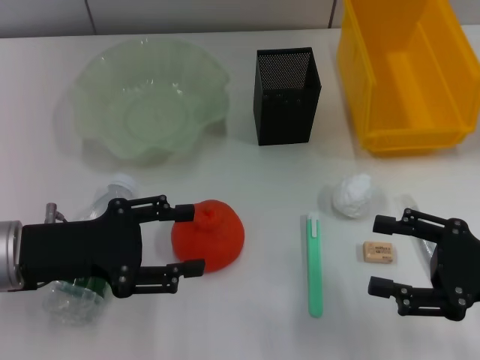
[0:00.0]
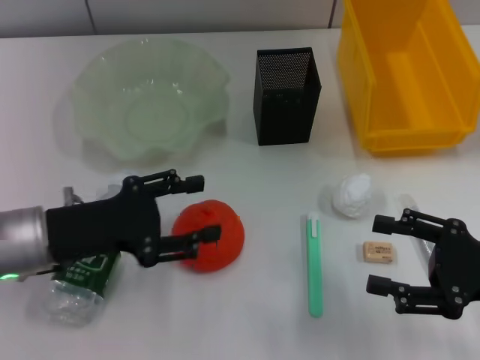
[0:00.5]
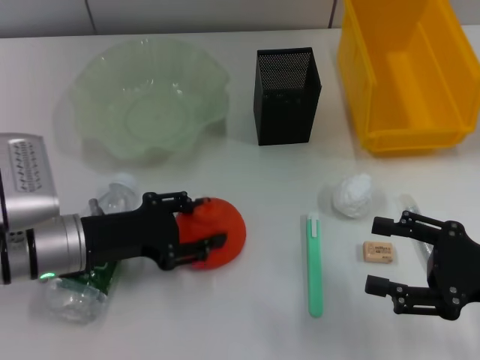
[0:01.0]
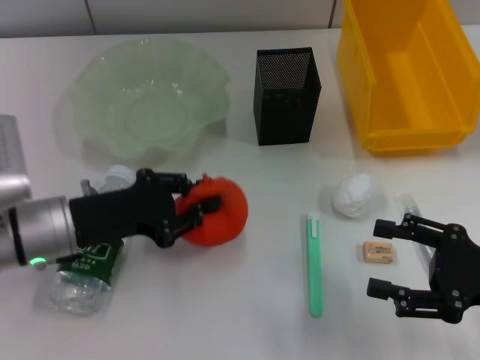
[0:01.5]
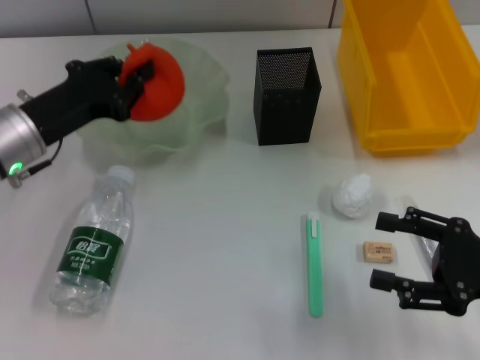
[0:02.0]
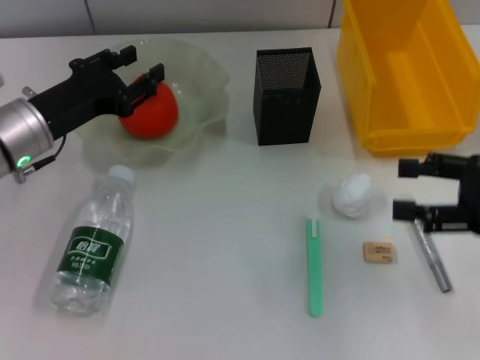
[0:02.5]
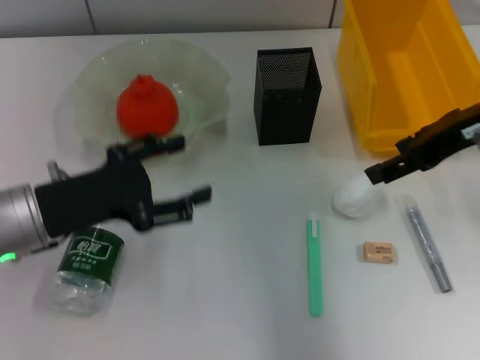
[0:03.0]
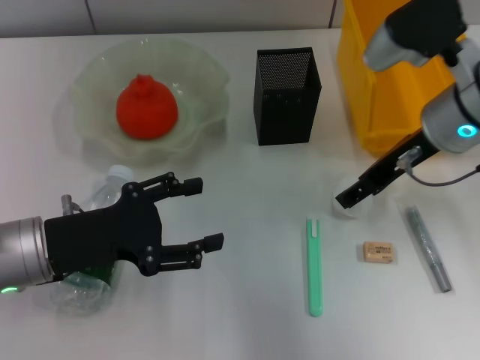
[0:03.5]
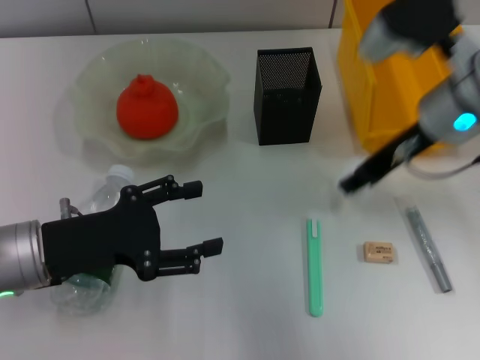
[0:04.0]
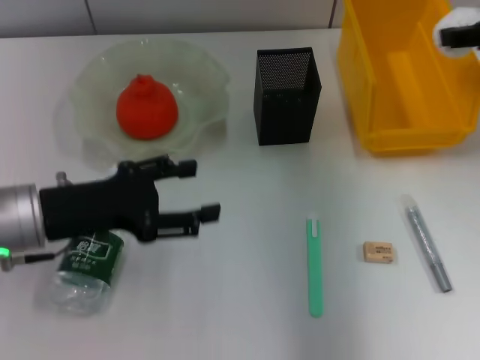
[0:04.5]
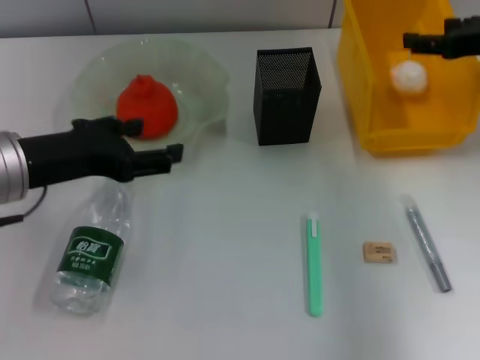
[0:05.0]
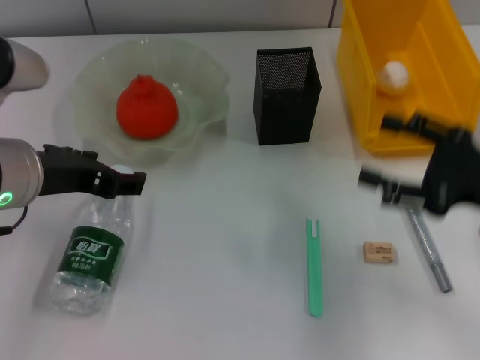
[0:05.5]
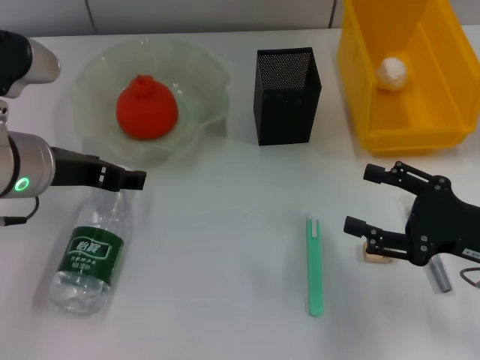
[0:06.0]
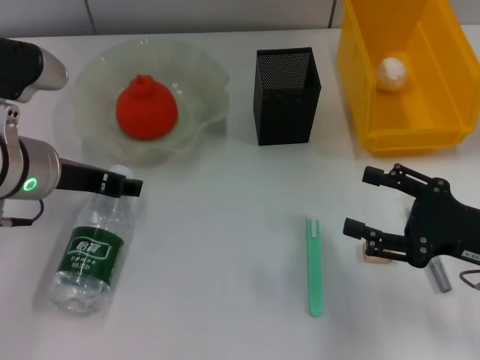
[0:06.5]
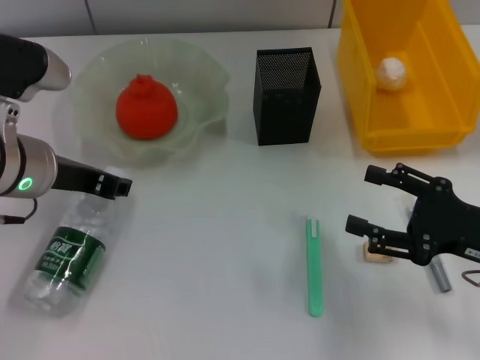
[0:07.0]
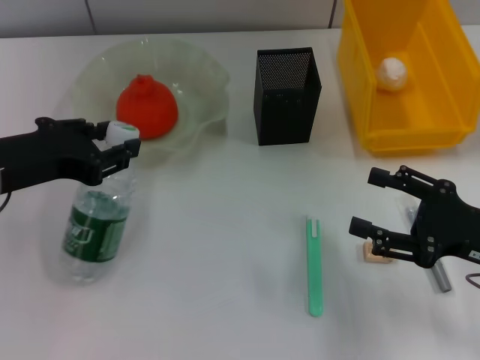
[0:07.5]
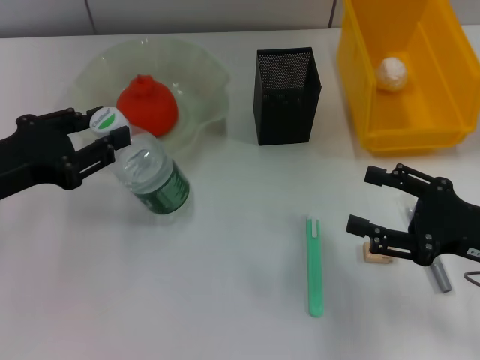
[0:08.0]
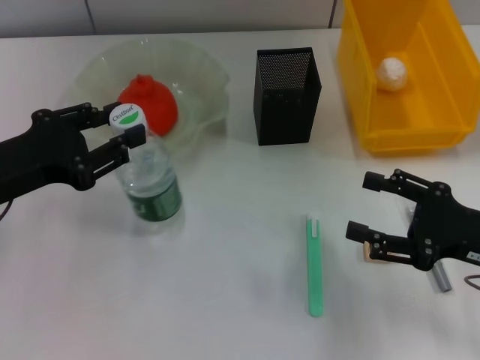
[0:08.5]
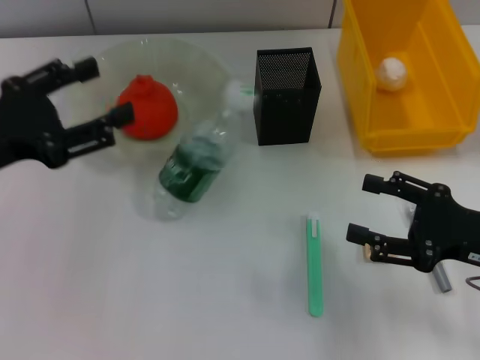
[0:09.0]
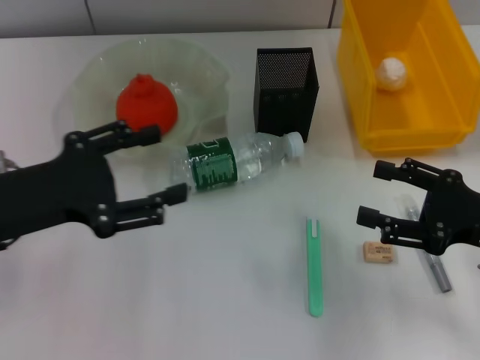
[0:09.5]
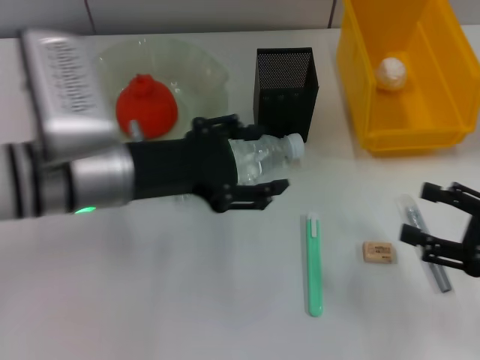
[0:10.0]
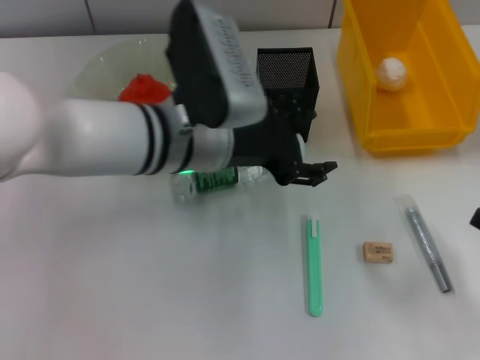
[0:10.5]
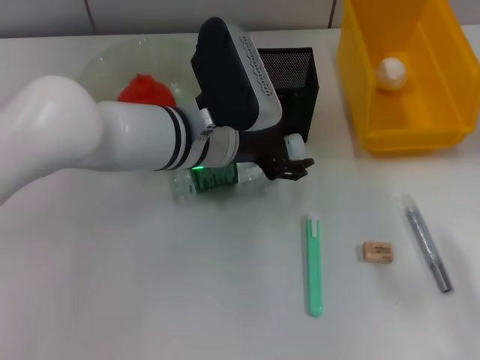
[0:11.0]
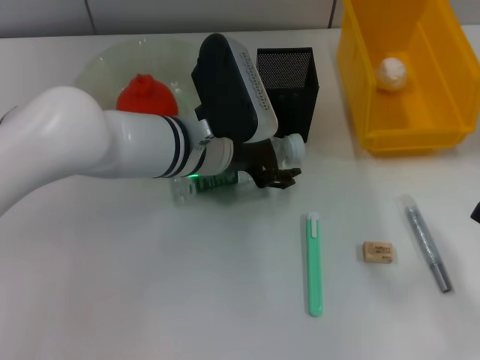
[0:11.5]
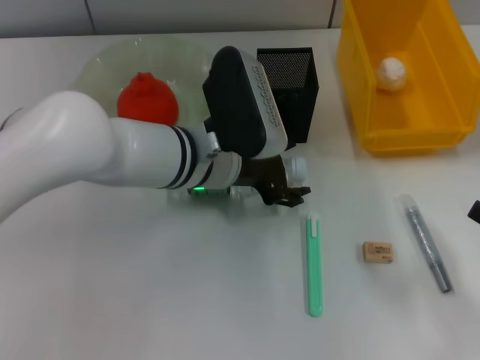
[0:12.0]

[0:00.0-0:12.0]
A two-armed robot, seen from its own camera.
Step, 0:00.0 to 0:01.0: Grab the orange with the left hand.
Step, 0:01.5 to 0:02.0: Place the orange into the fruit bowl with the left hand.
Step, 0:02.5 to 0:03.5: Grab the paper ball with the right hand.
Step, 0:04.0 to 0:05.0: Place the paper ball into the trash can with the right hand.
0:00.0 to 0:02.0: The left gripper moves forward, roughly 10 cm, and closes its fingers.
0:02.0 to 0:04.0: The right gripper heads forward, to the left and upward, covering roughly 20 cm. The left gripper moves backward, roughly 10 cm, and opens its fingers.
0:04.0 to 0:06.0: The right gripper travels backward, downward and to the right by roughly 20 cm. The left gripper travels upward and forward by about 10 cm.
0:06.0 to 0:08.0: The left gripper is displaced to the left by some 5 cm, and closes.
0:08.0 to 0:10.0: The left gripper travels to the right by roughly 10 cm, and opens up.
0:10.0 to 0:12.0: The right gripper changes place by approximately 5 cm, while the left gripper is displaced to the right and forward by about 10 cm.

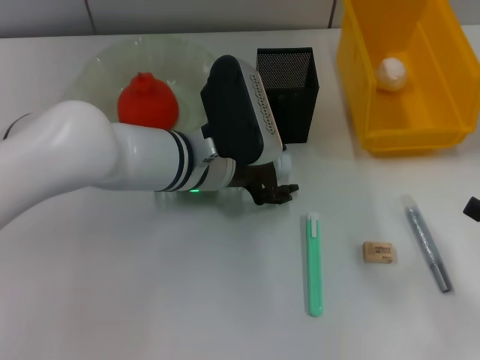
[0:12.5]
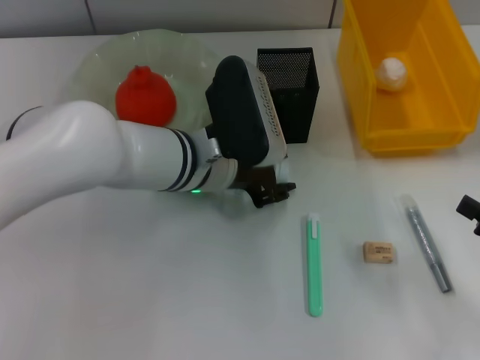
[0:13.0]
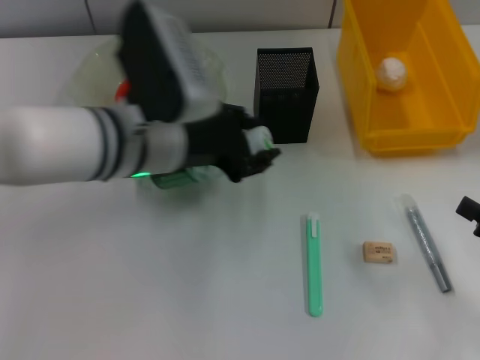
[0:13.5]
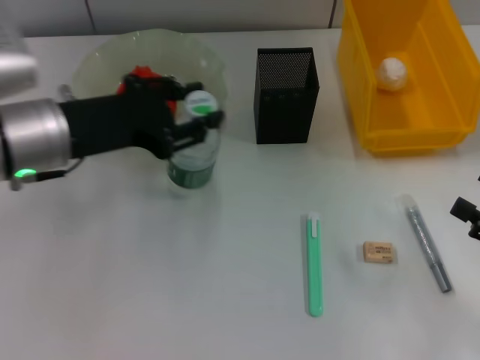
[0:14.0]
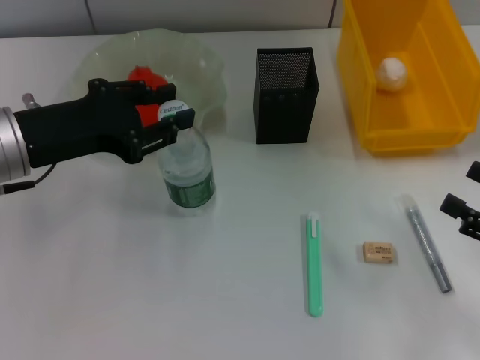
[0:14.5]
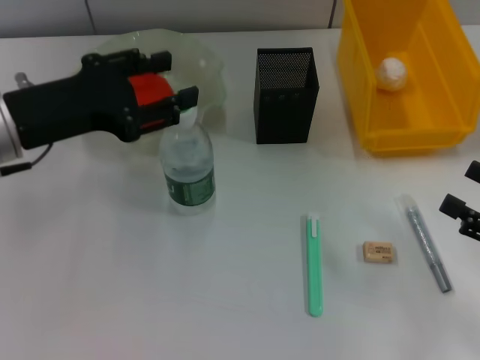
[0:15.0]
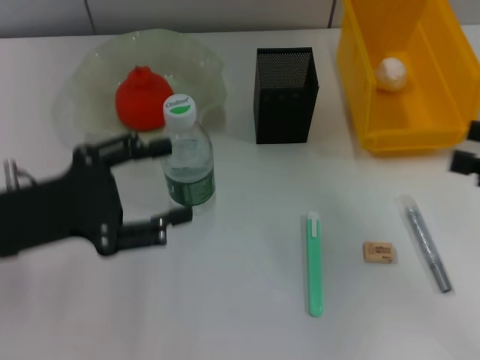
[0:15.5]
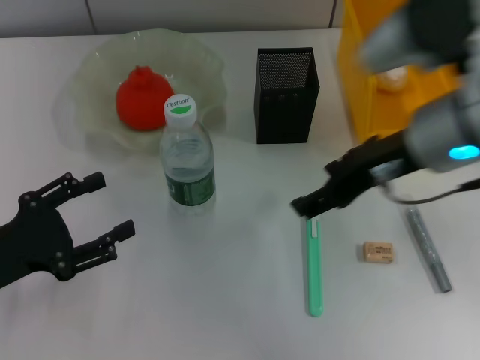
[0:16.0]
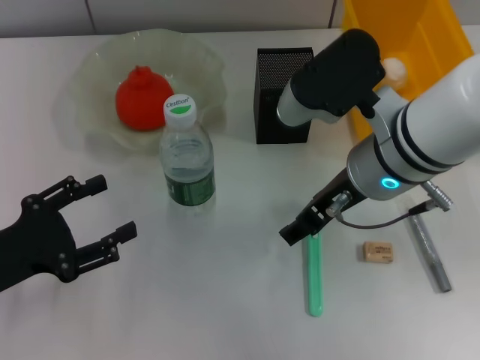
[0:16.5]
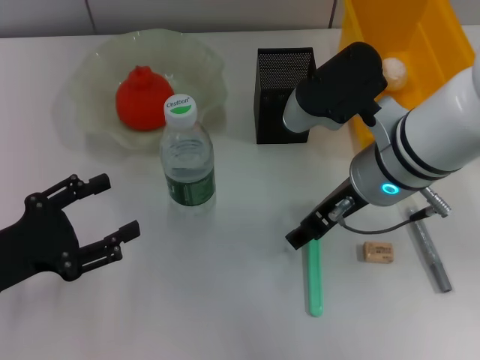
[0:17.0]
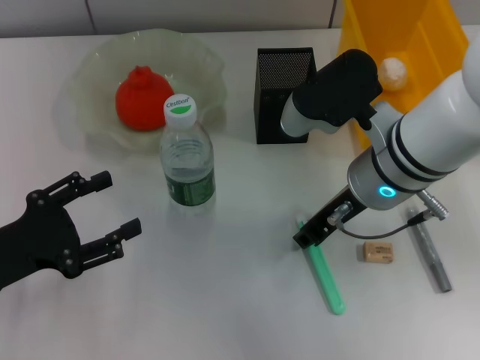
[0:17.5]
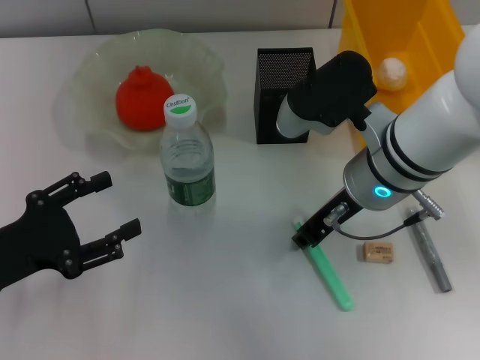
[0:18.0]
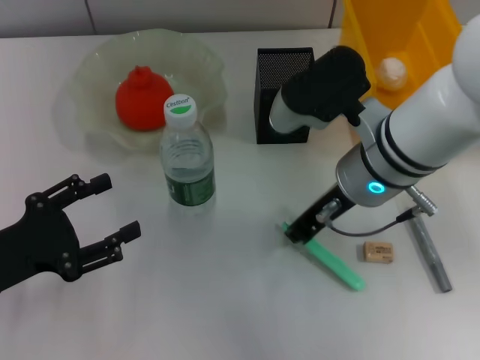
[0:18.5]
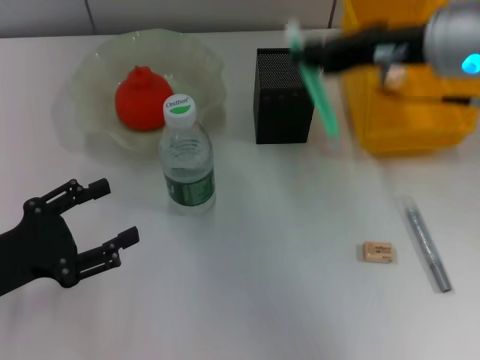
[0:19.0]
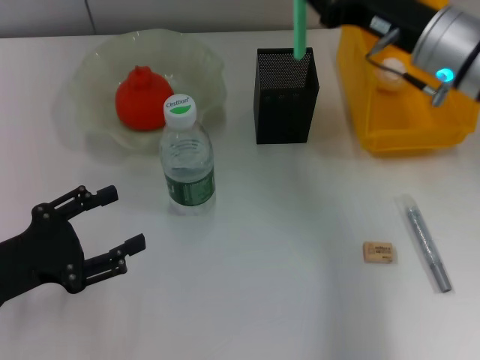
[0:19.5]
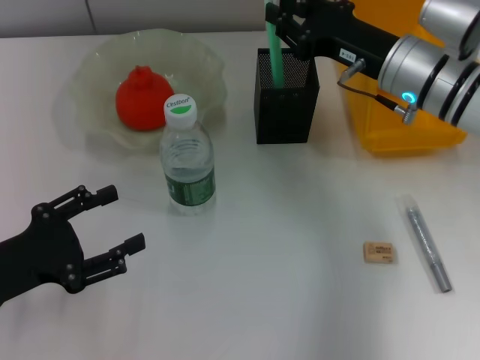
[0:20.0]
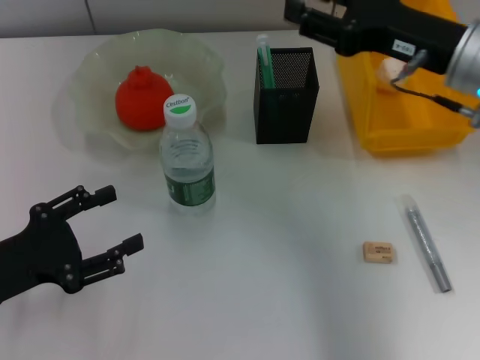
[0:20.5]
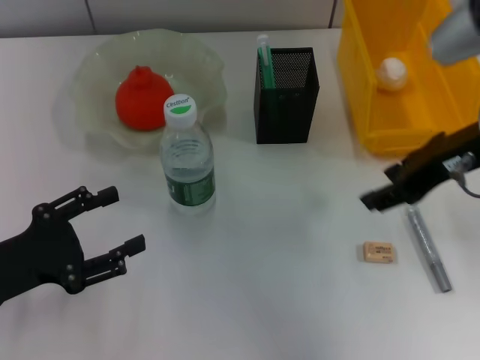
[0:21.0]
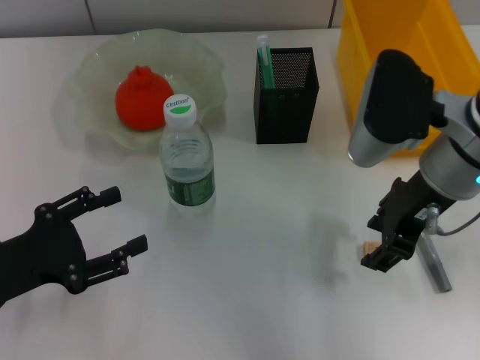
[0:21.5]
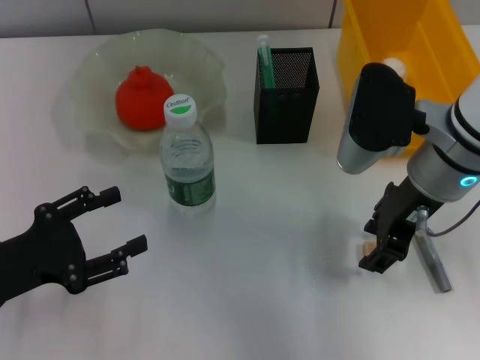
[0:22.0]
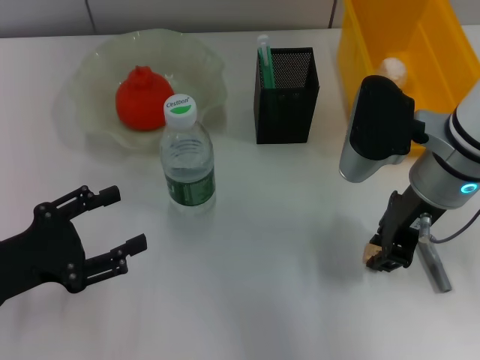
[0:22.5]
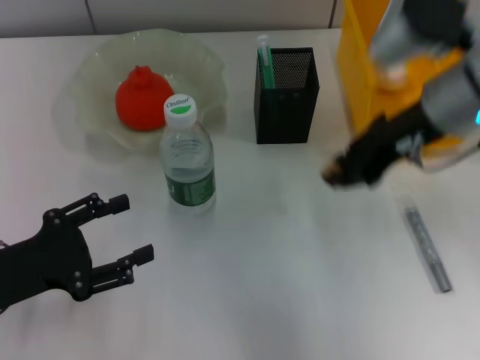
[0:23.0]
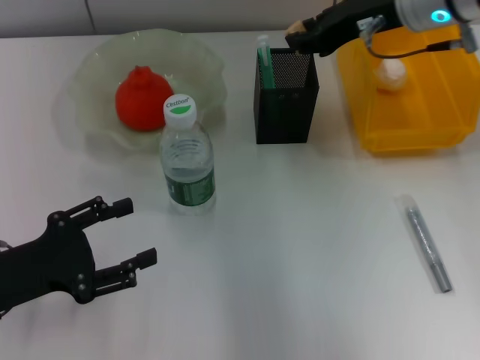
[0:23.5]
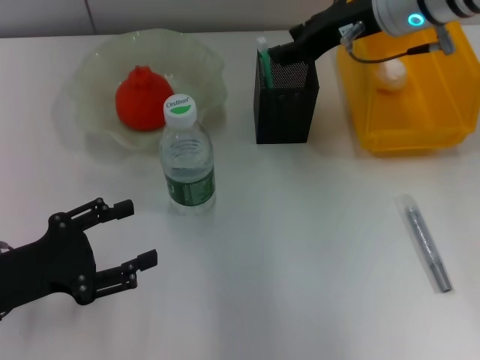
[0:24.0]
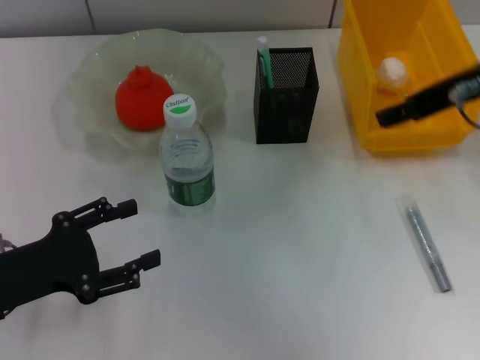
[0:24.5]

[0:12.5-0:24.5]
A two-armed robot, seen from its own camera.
Step, 0:13.5 to 0:14.5: Place the water bottle on the table with the left hand.
Step, 0:15.0 to 0:18.0: Grab the blue utility knife with the right hand.
Step, 0:18.5 to 0:20.0: Place the blue utility knife into the pen holder with the right hand.
Step, 0:20.5 to 0:22.5: Grab the eraser with the right hand.
Step, 0:23.0 to 0:23.5: Put the eraser into the pen holder with the right hand.
0:12.5 to 0:14.5: The left gripper moves to the left and upward, some 20 cm, and closes its fingers.
0:14.5 to 0:16.5: The right gripper travels to the left and forward by some 25 cm. Meanwhile the left gripper is displaced downward, backward and to the left by approximately 15 cm, and opens up.
0:16.5 to 0:18.5: The right gripper closes its fingers.
0:18.5 to 0:20.5: The right gripper moves up and down over roughly 10 cm, changing direction 2 times, and opens up.
0:20.5 to 0:22.5: The right gripper moves about 5 cm.
0:22.5 to 0:24.5: The right gripper travels upward by about 10 cm, and opens.

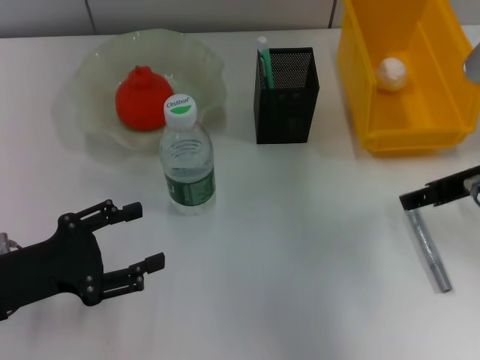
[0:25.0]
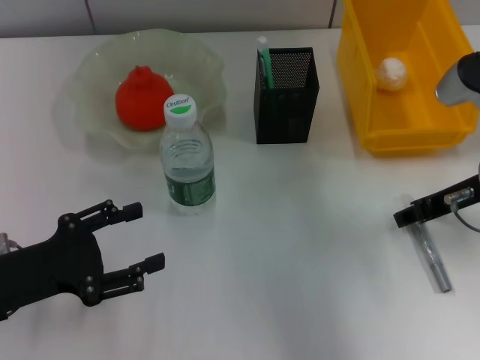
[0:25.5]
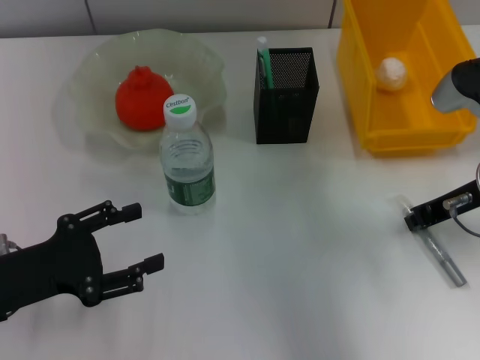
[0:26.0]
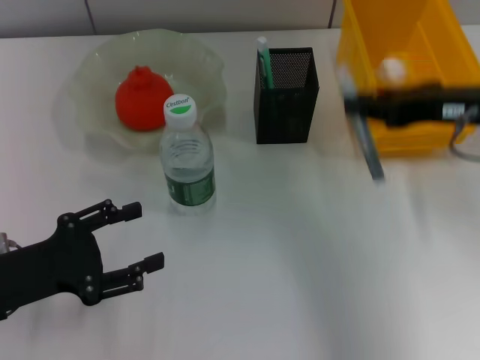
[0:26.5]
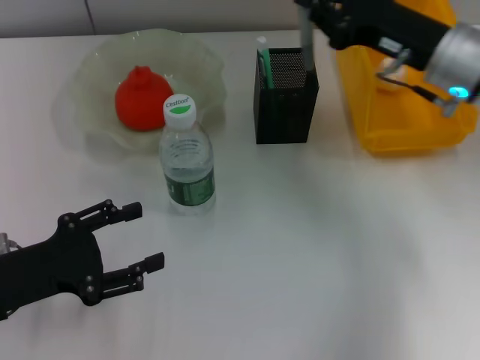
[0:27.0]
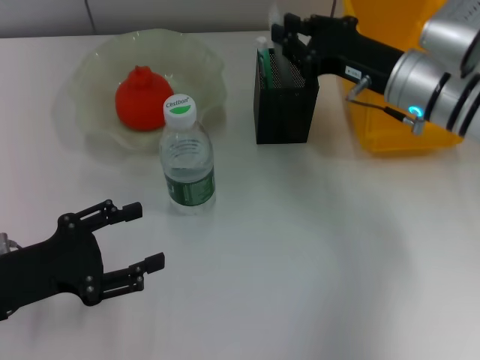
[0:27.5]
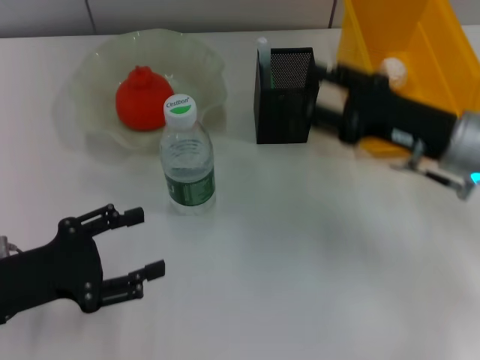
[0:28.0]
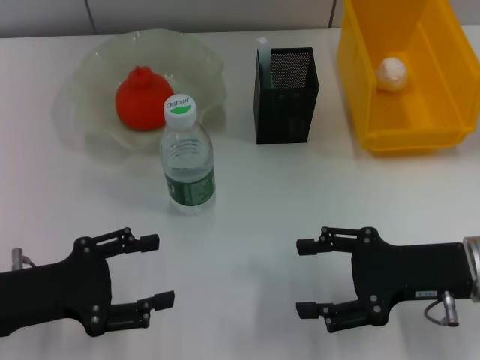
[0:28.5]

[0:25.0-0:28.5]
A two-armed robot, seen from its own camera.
Step, 0:25.0 to 0:26.0: Grab the gray glue with the right hand.
Step, 0:26.5 to 0:27.5: Place the gray glue into the pen holder with the right hand.
0:25.0 to 0:27.0: The right gripper shifts roughly 10 cm forward, and closes its fingers.
0:27.0 to 0:28.5: The right gripper is displaced backward and downward by about 15 cm, and opens.
